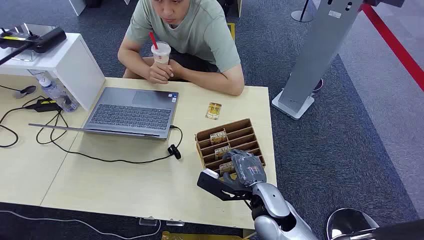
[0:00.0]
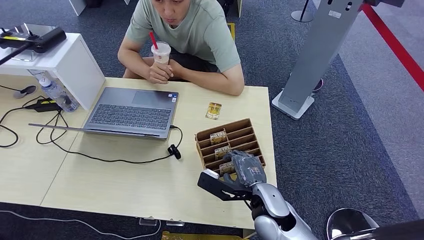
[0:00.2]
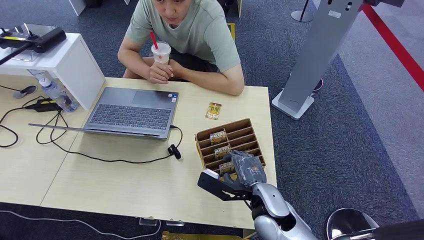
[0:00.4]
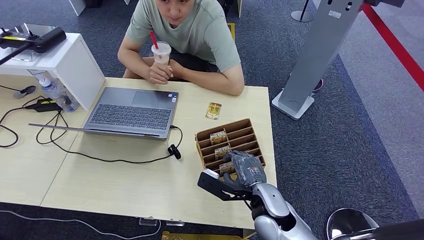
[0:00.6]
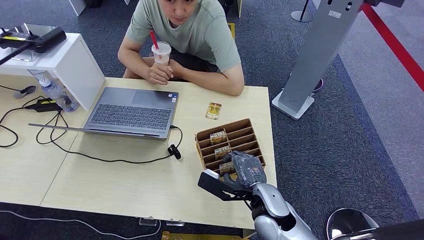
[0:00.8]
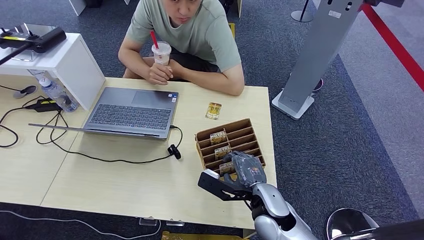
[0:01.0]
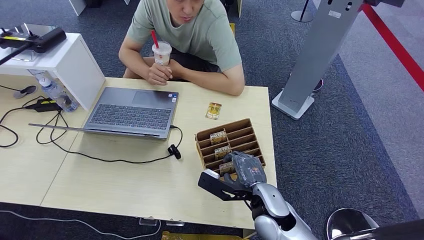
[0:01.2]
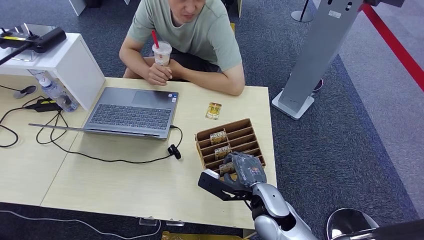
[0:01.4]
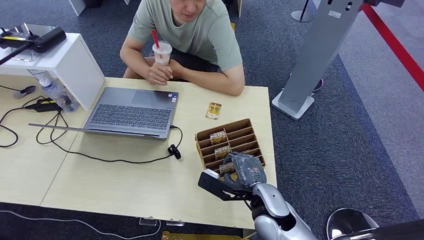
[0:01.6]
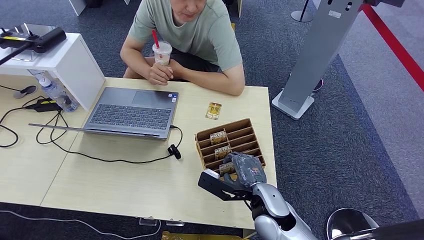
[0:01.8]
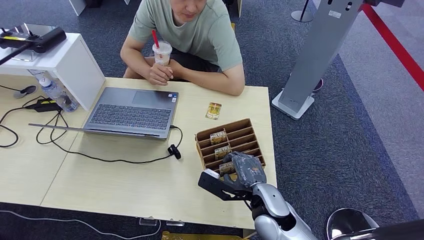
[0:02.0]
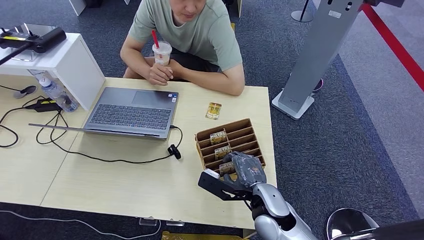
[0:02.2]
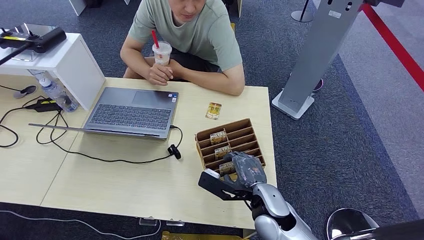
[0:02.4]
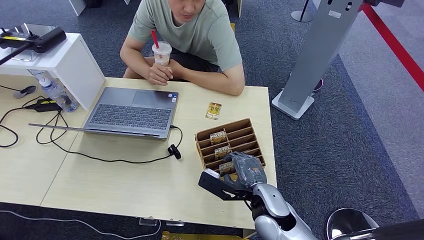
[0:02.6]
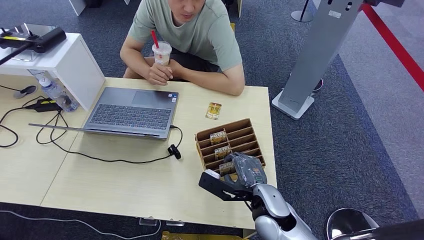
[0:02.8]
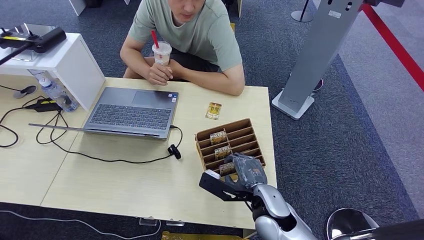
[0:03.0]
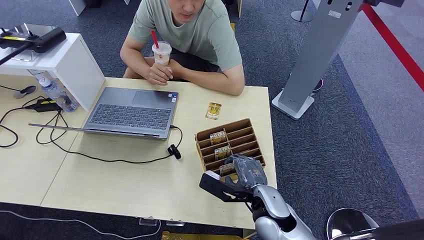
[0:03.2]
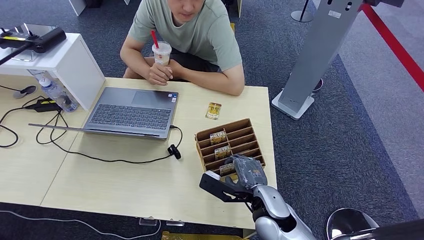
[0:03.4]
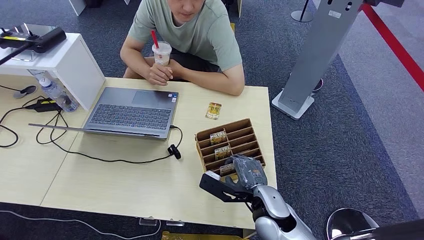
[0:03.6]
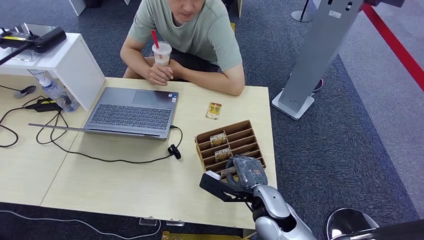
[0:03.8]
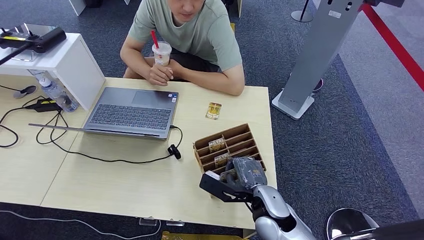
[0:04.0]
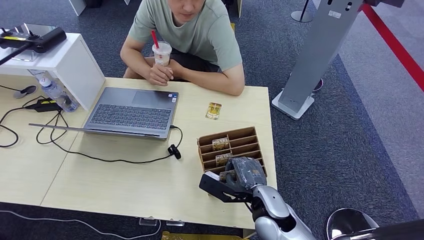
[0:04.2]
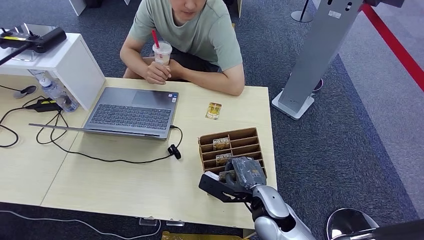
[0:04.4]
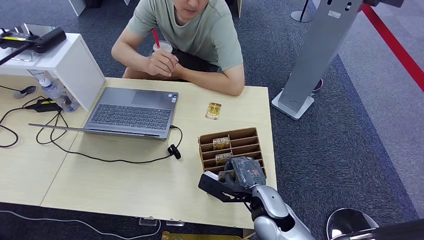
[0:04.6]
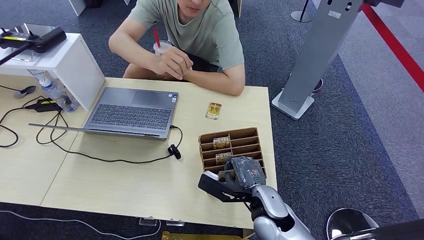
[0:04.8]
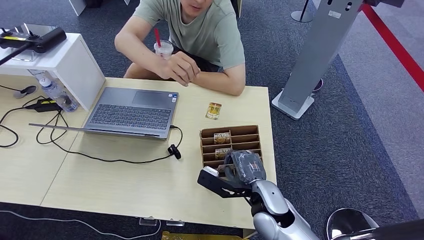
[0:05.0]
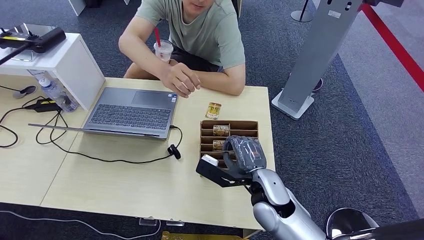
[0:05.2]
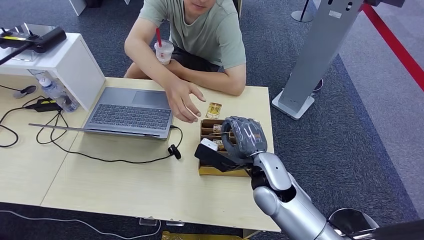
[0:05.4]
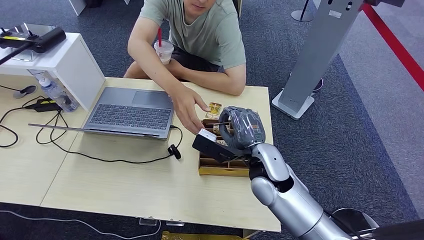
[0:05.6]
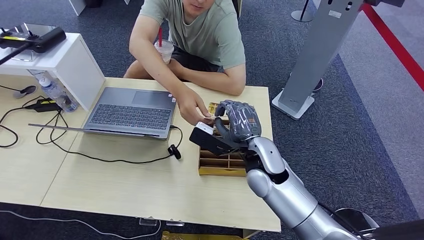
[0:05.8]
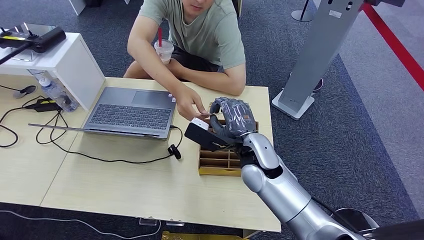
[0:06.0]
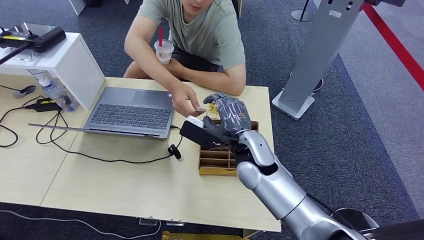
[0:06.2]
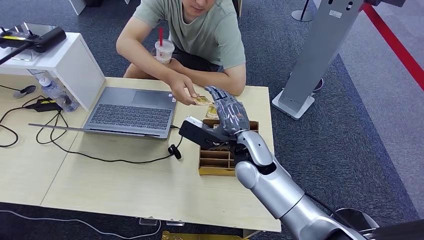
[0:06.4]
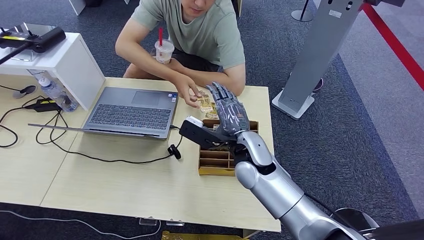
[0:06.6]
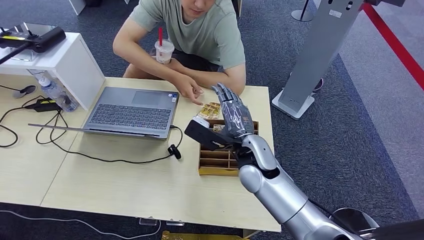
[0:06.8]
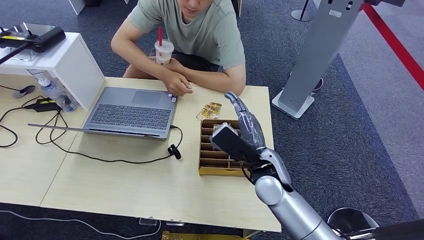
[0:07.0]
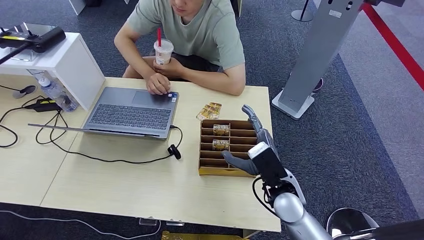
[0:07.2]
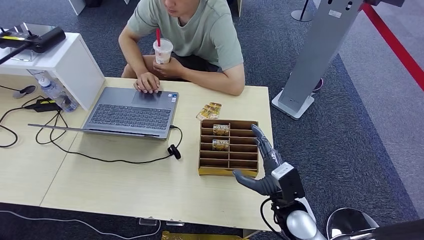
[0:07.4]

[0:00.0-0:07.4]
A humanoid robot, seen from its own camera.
Step, 0:00.0 to 0:05.8: Pick up the key card from the card box.
Step, 0:06.0 to 0:07.4: Hand the key card to the target.
0:01.4 to 0:04.4: Both hands stay put.
0:04.4 to 0:06.0: The right hand heads upward and forward, covering some 15 cm.
0:06.0 to 0:07.4: The right hand goes about 15 cm to the right, downward and backward.

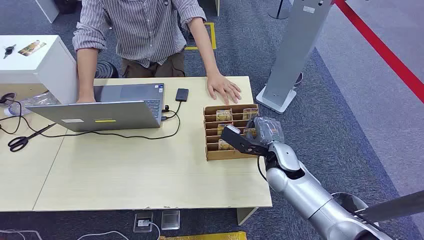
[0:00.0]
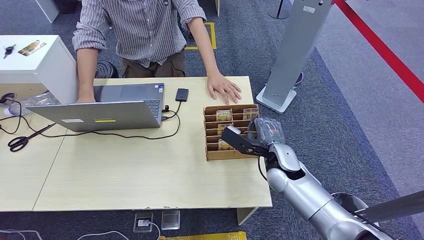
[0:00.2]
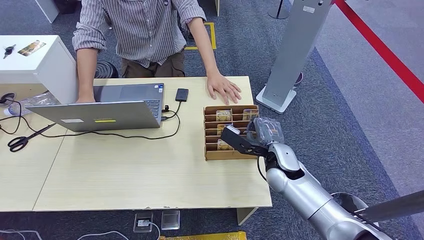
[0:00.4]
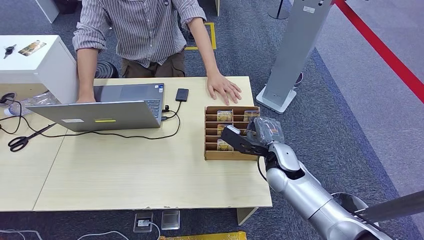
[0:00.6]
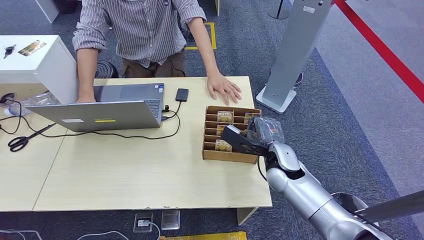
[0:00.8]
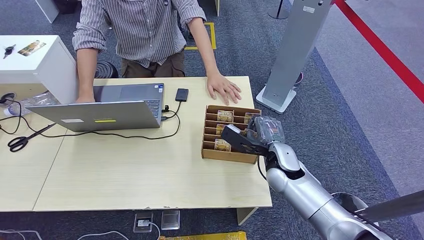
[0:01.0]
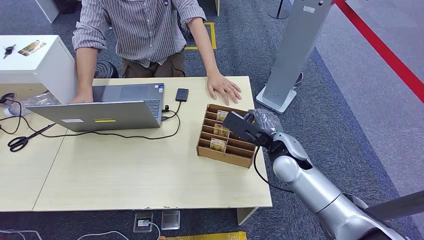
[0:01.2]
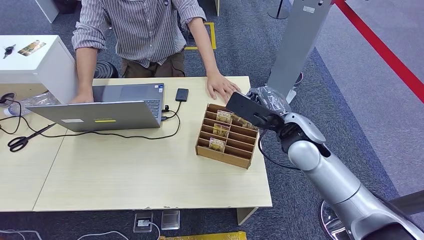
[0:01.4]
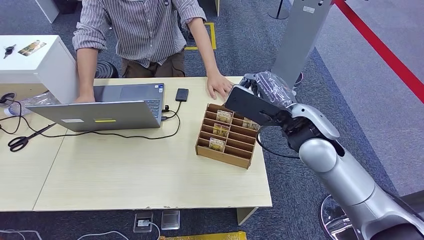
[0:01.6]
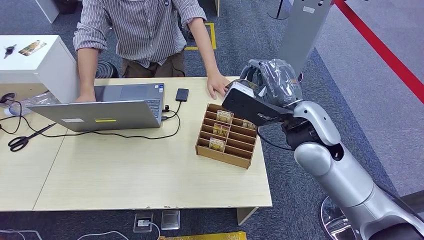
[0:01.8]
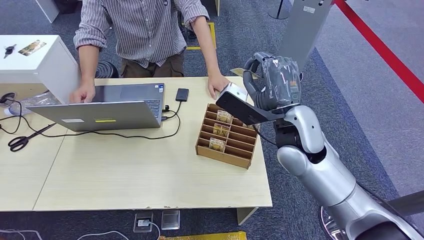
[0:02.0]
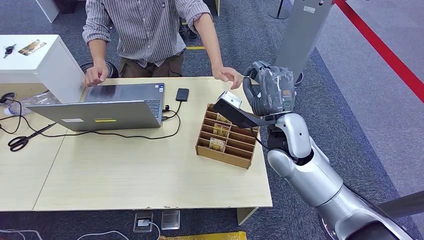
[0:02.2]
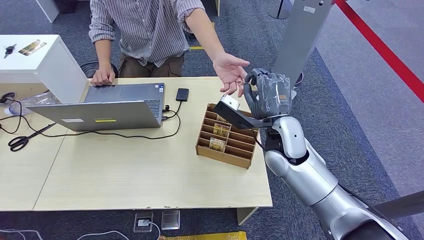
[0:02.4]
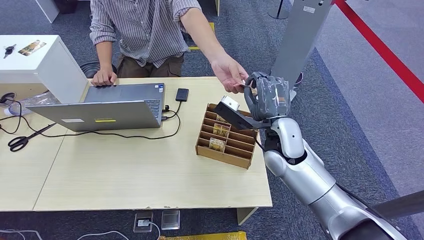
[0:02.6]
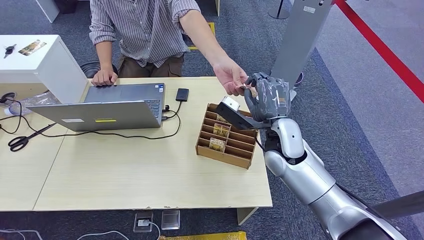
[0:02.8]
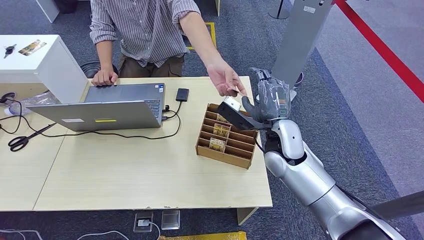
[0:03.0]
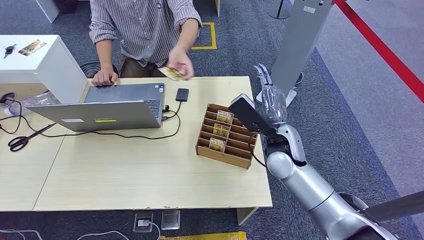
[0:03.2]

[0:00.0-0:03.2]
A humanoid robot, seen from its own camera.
Step, 0:00.0 to 0:01.4: Pick up the key card from the card box.
Step, 0:02.6 to 0:03.2: Hand the key card to the target.
0:01.6 to 0:03.2: The right hand heads downward, covering approximately 10 cm.
